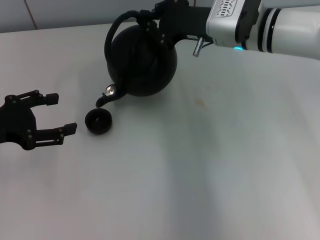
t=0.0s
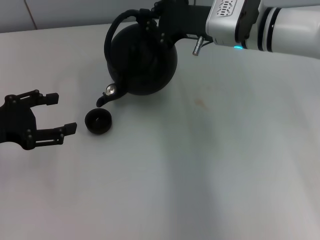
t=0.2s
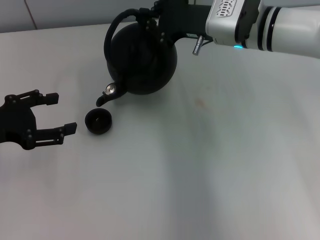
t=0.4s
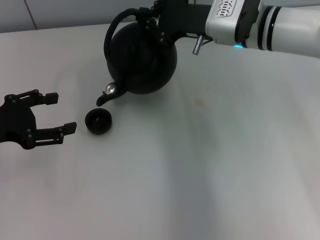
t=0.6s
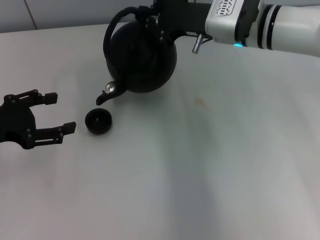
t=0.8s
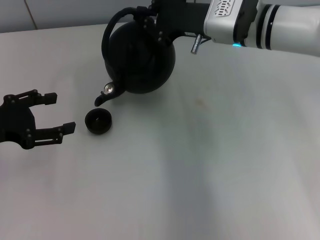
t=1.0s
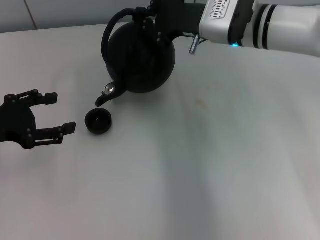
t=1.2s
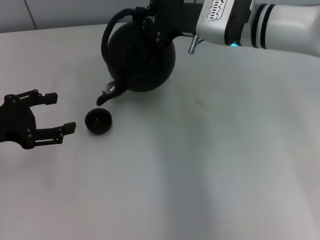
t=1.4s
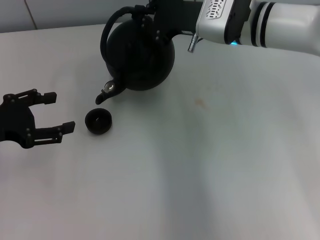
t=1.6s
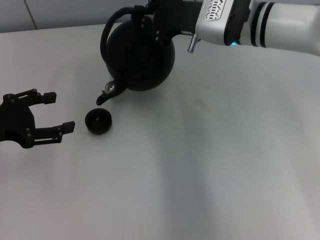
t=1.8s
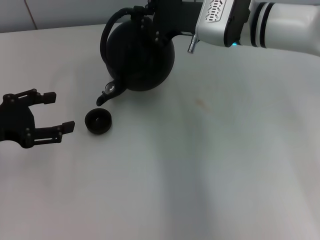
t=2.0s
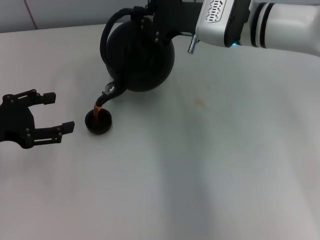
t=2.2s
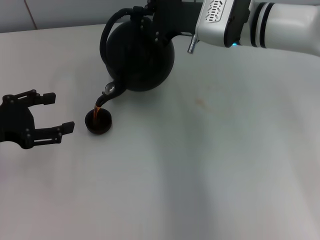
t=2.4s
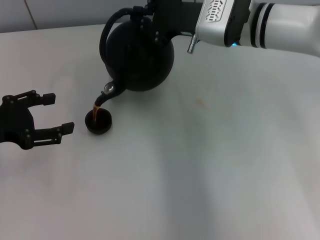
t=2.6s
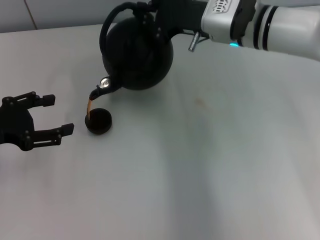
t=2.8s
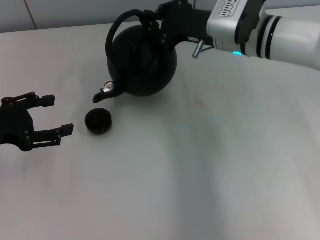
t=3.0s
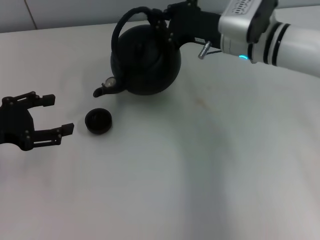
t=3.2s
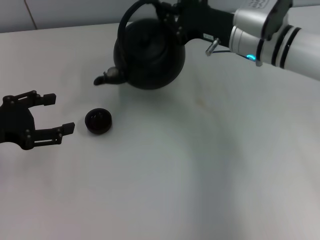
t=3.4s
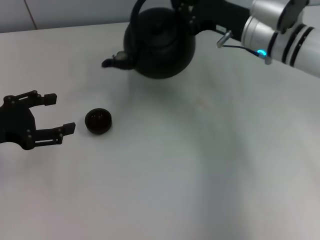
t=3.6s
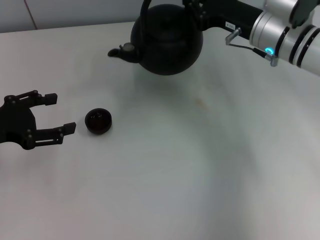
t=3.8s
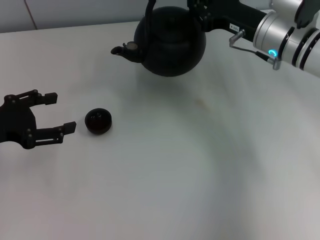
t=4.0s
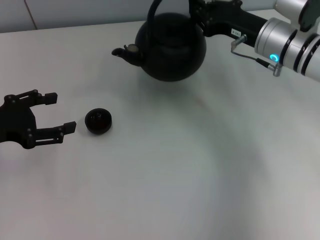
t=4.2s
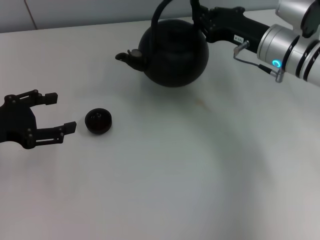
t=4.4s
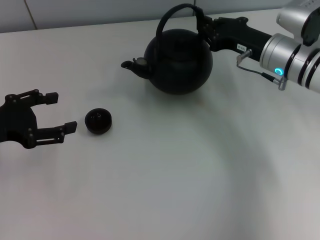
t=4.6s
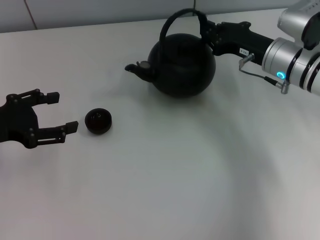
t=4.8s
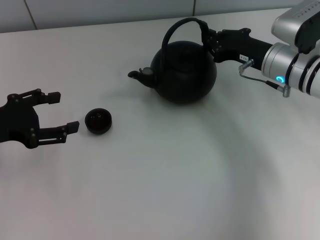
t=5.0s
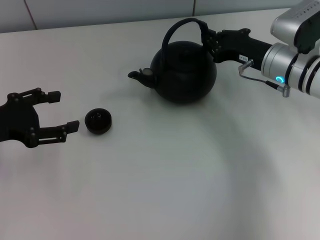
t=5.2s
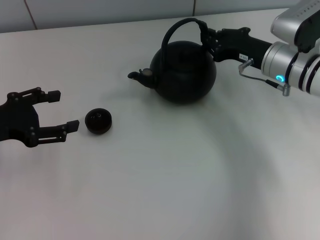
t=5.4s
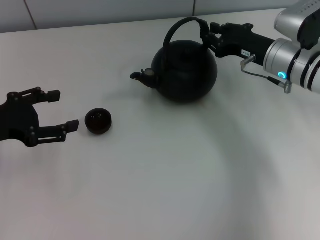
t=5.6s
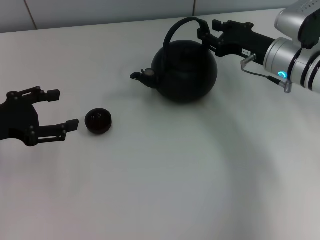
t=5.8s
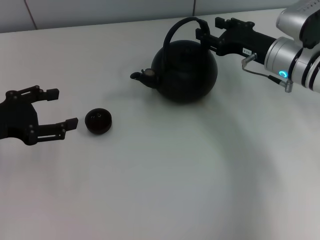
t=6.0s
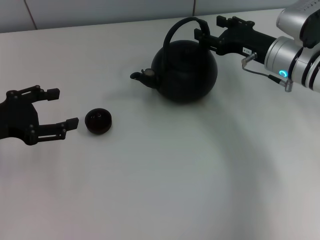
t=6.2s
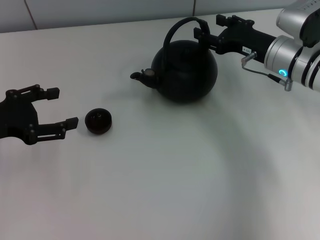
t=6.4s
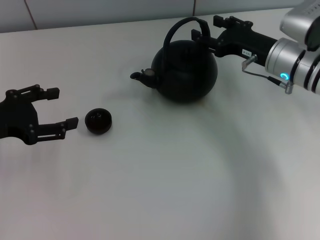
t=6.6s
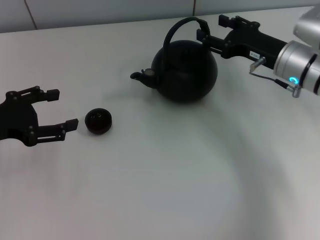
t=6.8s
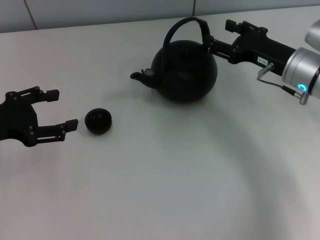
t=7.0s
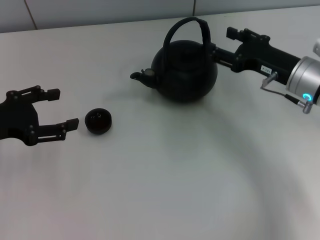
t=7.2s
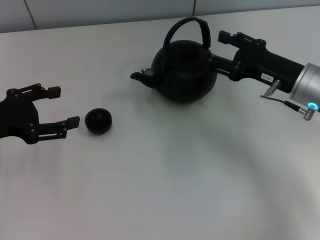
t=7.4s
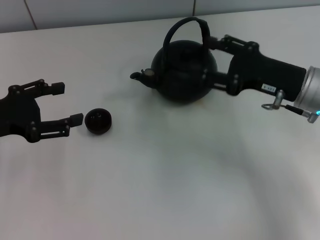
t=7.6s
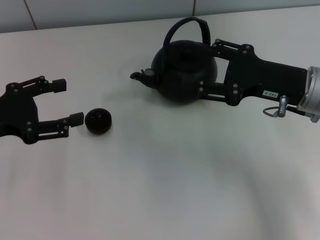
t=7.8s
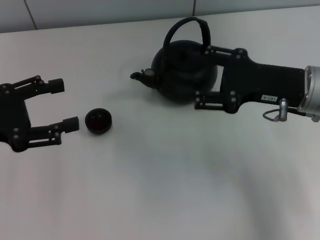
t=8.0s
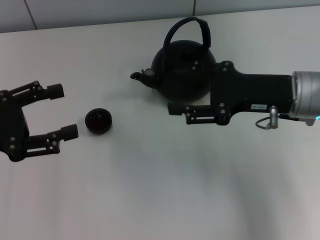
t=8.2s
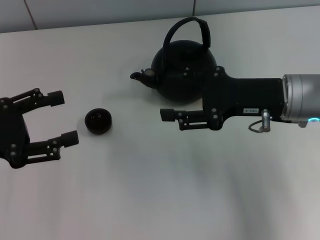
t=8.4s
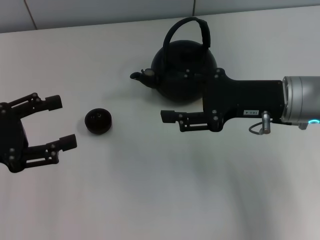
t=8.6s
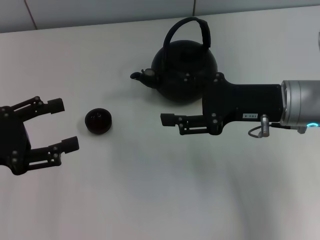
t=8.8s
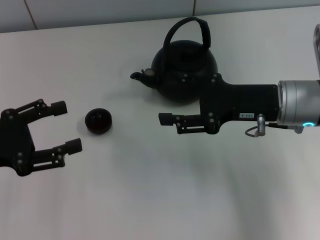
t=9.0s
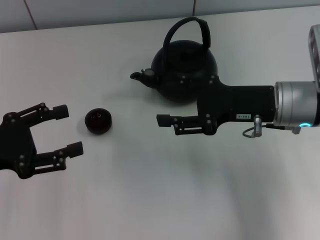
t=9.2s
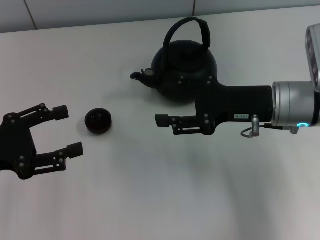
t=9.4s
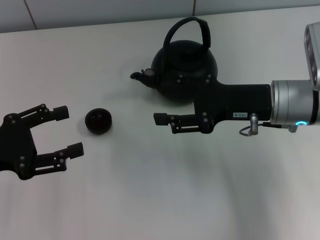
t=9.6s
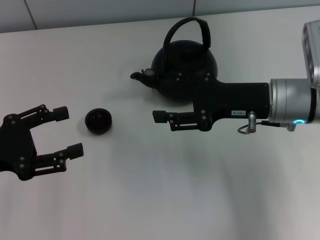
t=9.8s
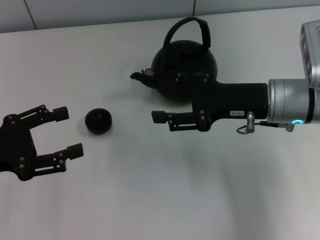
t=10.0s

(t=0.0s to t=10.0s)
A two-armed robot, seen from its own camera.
Task of the whole recording: Grasp the handle of the teapot with one hand and pour tea into the teacup.
Step, t=4.4s - t=8.6s: Put down the teapot with the right gripper.
t=0.0s - t=1.4s: Both grippers stay put.
t=1.4s - t=2.8s: There are only small adjustments of the grippers.
t=2.8s - t=4.2s: The right gripper goes about 5 cm to the right.
t=4.2s - t=5.8s: The grippers stay close to where they were, moving slightly.
t=5.8s - t=7.2s: The right gripper changes place by approximately 5 cm, and opens its fingers.
t=7.2s - t=8.6s: The right gripper ends up some 5 cm from where it was.
t=8.6s - t=10.0s: The grippers stay close to where they were, moving slightly.
